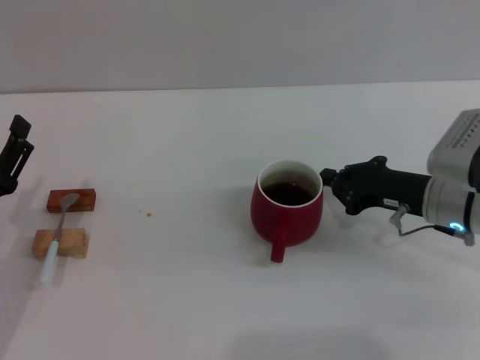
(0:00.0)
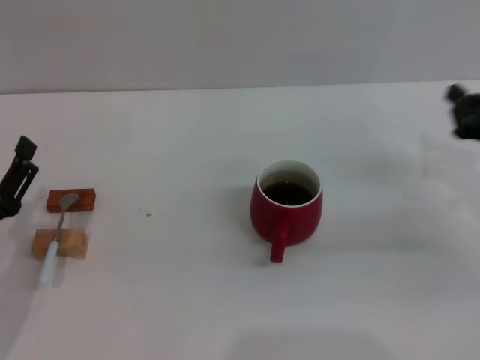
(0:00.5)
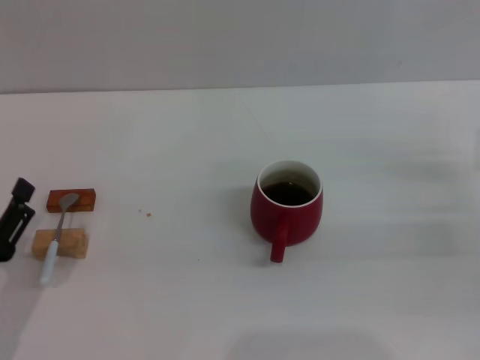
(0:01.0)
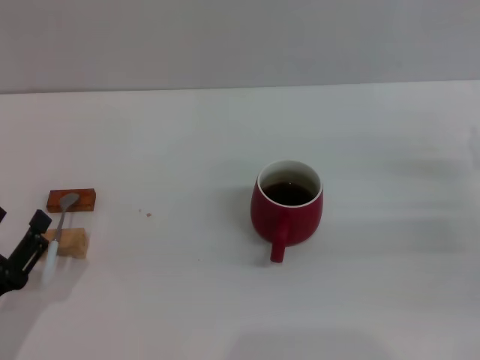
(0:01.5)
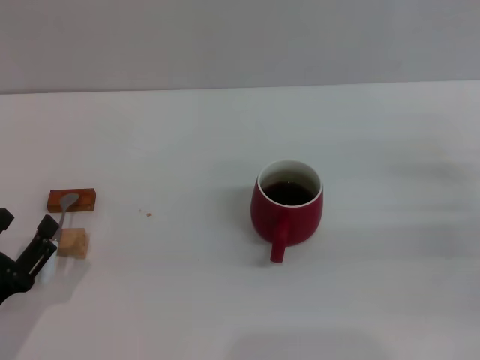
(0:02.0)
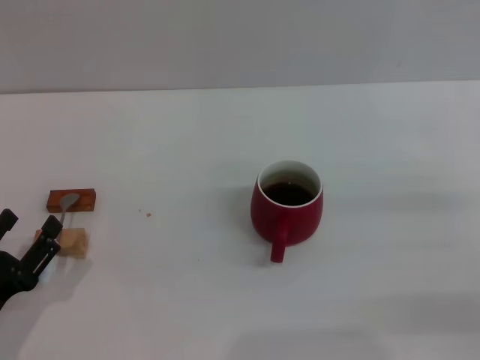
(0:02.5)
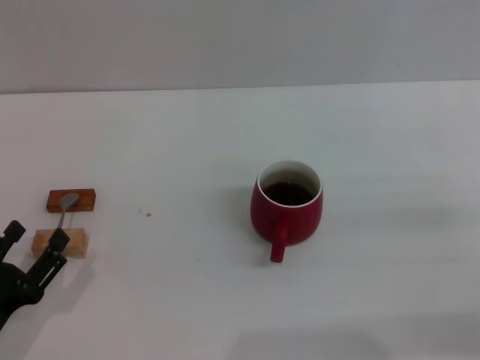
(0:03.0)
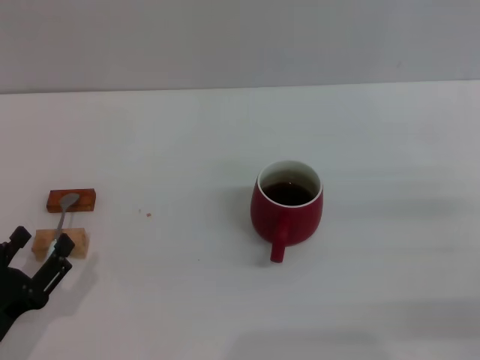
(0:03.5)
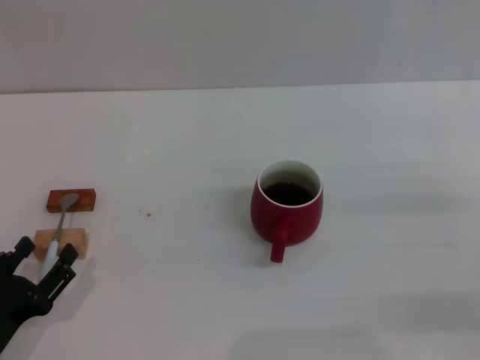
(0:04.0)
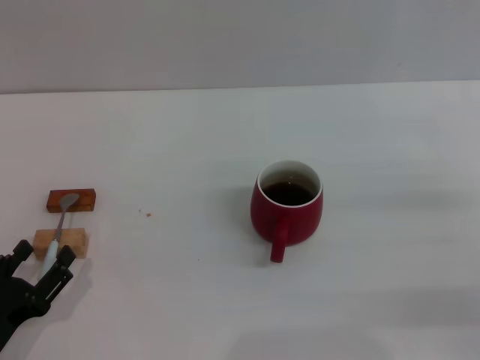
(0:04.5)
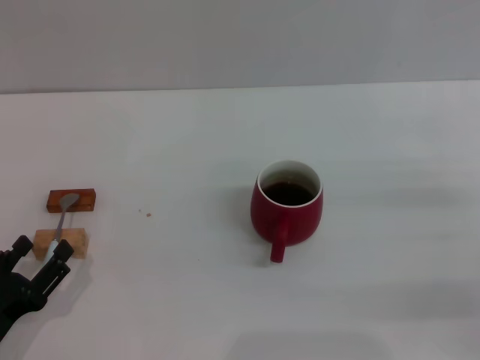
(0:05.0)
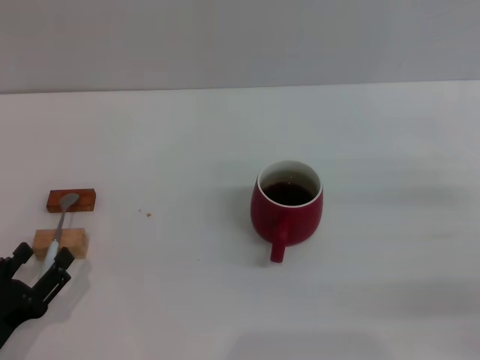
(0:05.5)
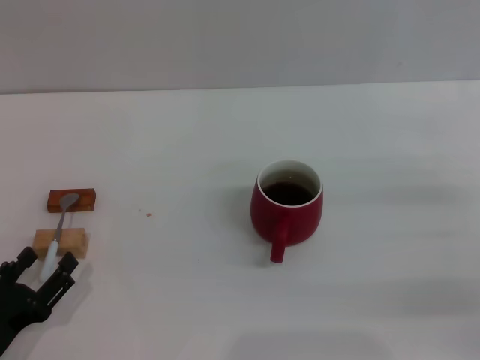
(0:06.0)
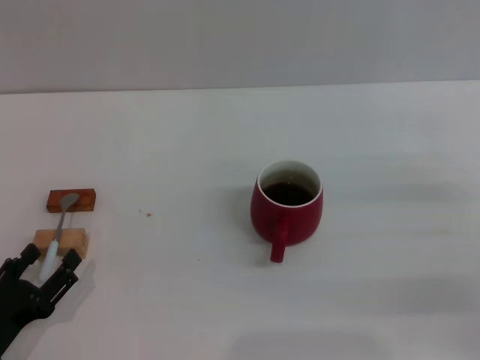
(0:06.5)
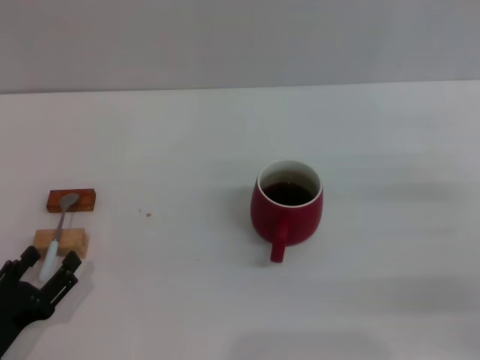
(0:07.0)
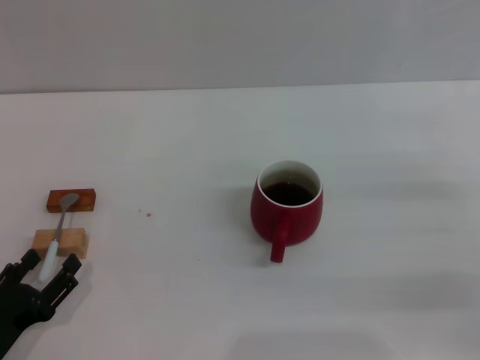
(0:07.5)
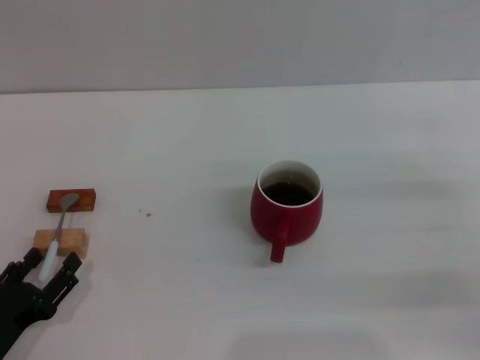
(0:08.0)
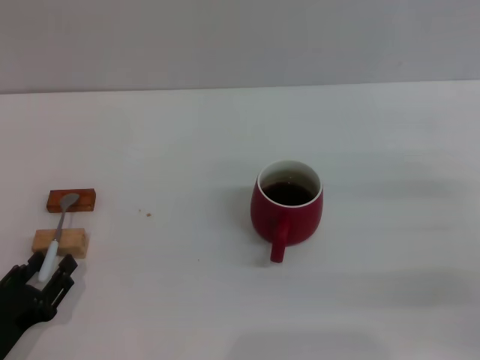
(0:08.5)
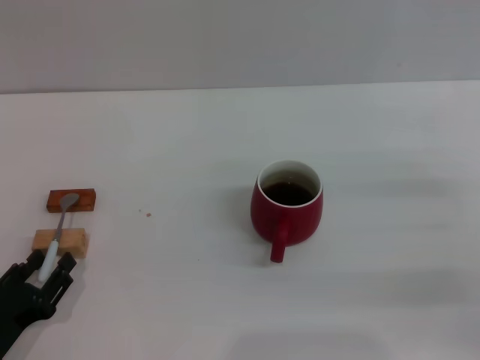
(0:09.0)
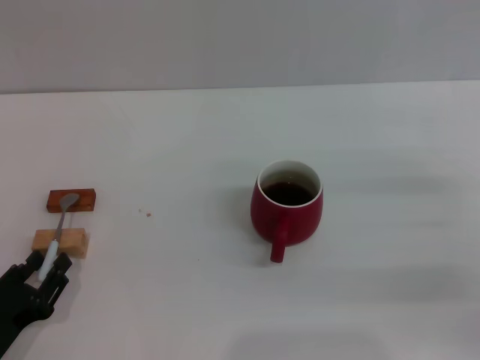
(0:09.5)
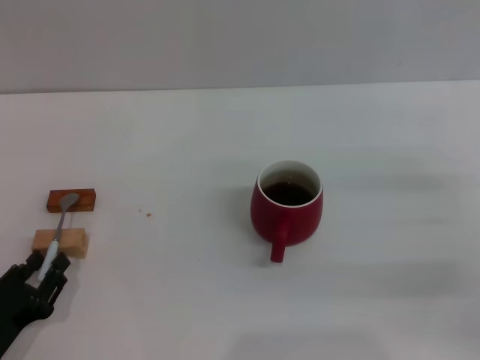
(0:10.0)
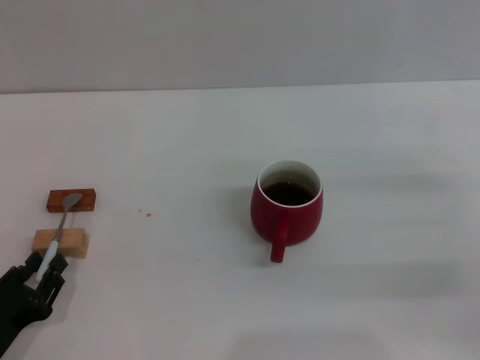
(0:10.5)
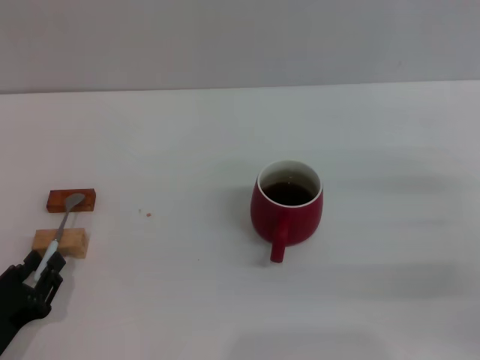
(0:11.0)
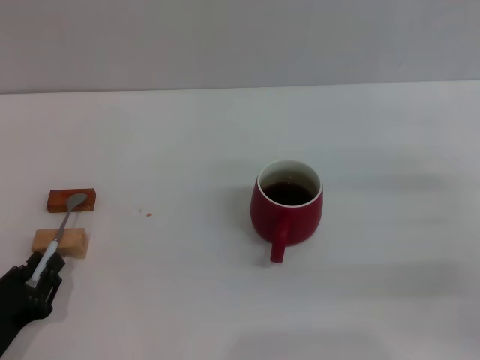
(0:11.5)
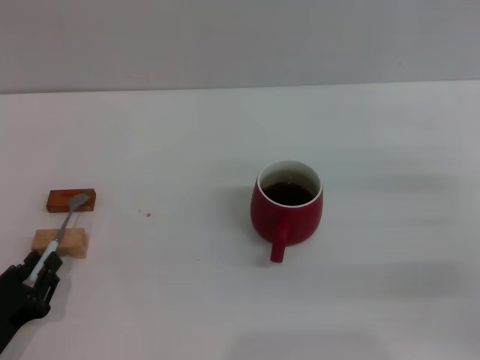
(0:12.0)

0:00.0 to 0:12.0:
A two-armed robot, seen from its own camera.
Task of the whole recording: Move the red cup to the center, lift the blue spoon, stir it three times in the cup, and put the spoon into the cup.
0:00.0 to 0:02.0: The right gripper moves to the right, roughly 10 cm, and opens. The left gripper goes about 5 cm backward.
0:04.0 to 0:06.0: Both grippers stay put.
0:06.0 to 0:08.0: Both grippers stay put.
0:08.0 to 0:10.0: The left gripper closes its fingers.
0:10.0 to 0:12.0: Both grippers stay put.

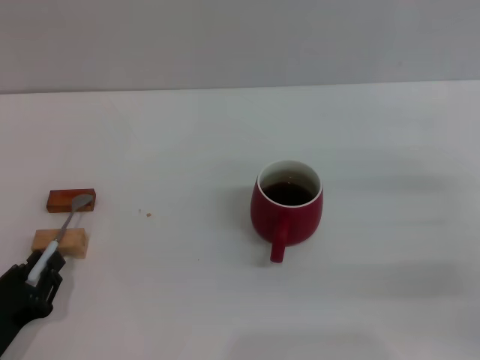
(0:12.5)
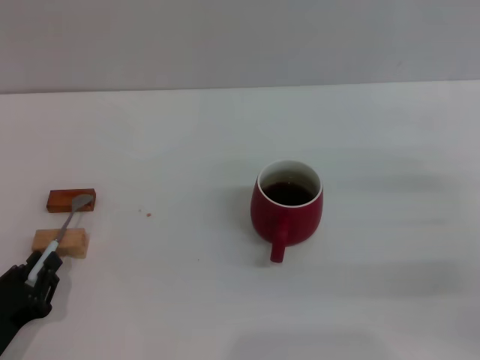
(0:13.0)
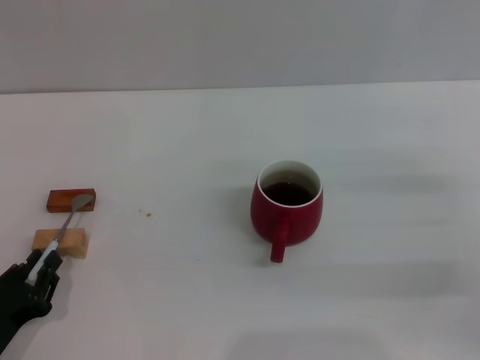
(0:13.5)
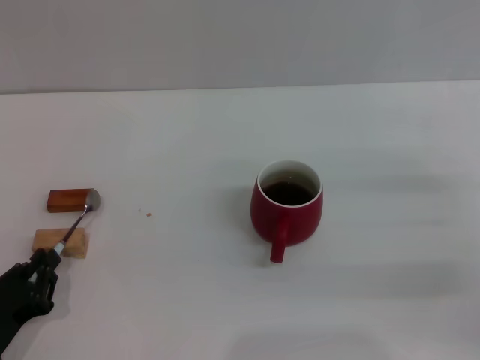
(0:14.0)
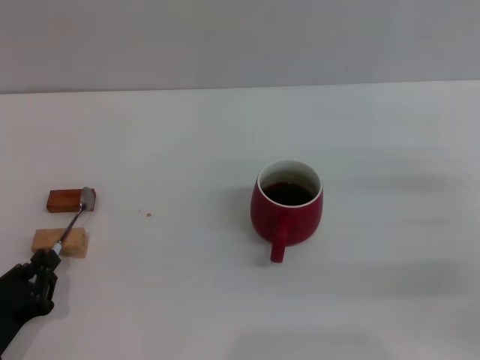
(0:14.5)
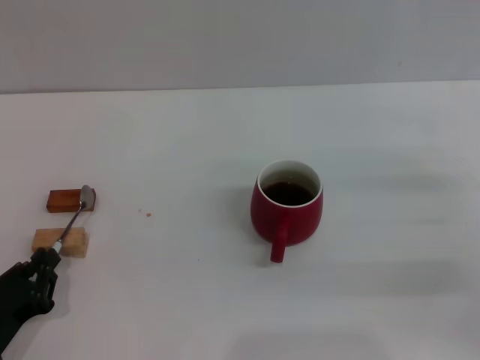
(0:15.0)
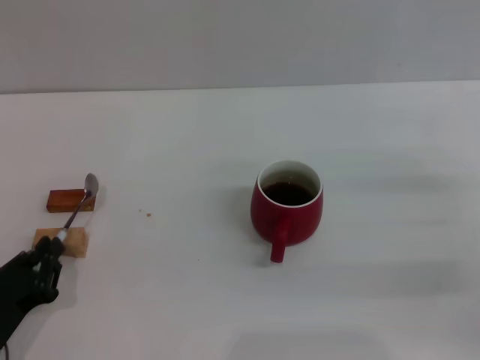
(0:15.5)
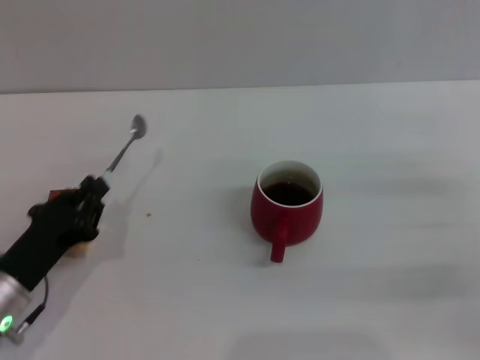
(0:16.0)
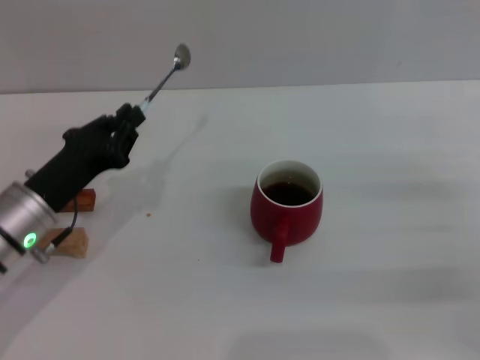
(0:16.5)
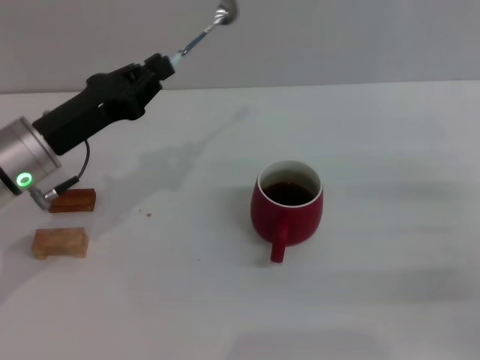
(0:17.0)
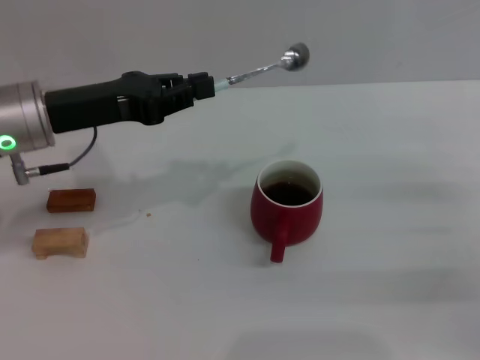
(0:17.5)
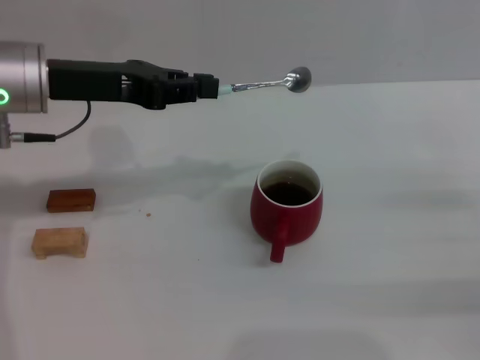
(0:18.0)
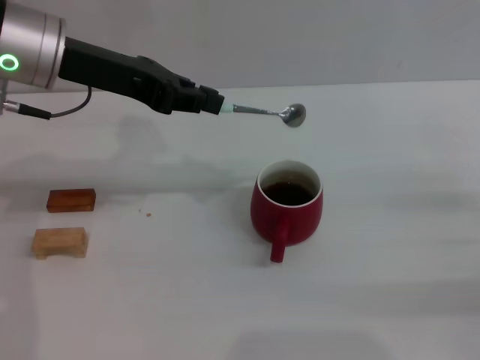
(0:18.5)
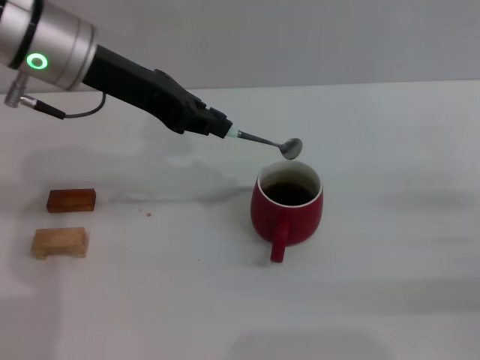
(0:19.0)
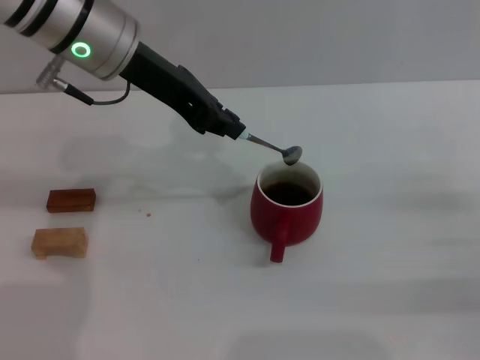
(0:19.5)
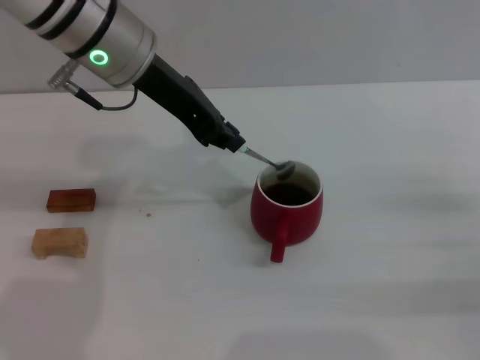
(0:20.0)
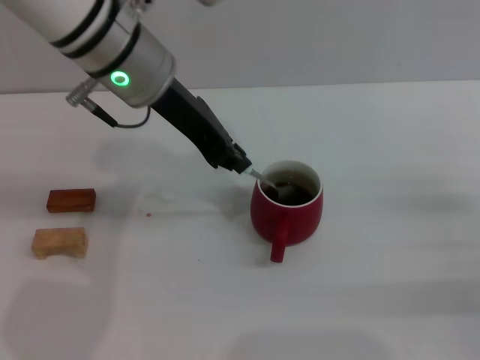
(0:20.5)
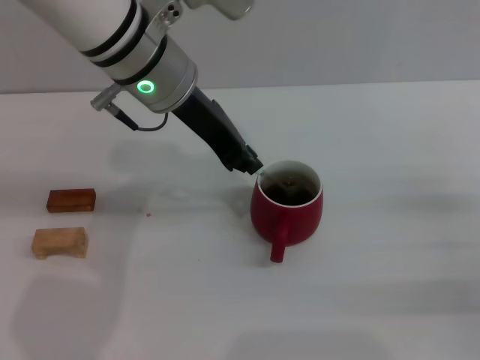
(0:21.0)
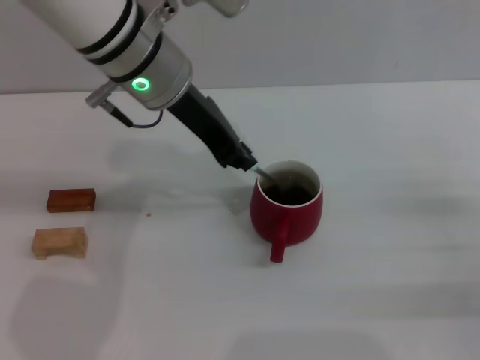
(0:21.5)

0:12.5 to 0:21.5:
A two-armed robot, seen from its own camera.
Task of the whole recording: Move the red cup to the center, lift the blue spoon, stir it three times in the cup, and put the spoon into the cup.
Step, 0:12.5 to 0:15.5: Pick up the spoon with the left gripper.
0:12.5 to 0:14.5: Both grippers stay put.
0:14.5 to 0:17.0: The left gripper moves forward and upward, approximately 20 cm.
0:17.0 to 0:19.5: The left gripper goes some 20 cm upward, to the right and forward.
0:19.5 to 0:21.5: The left gripper changes place by roughly 5 cm.

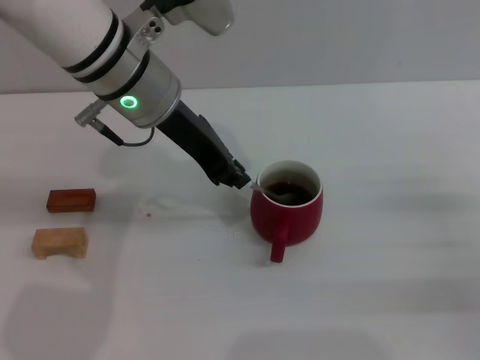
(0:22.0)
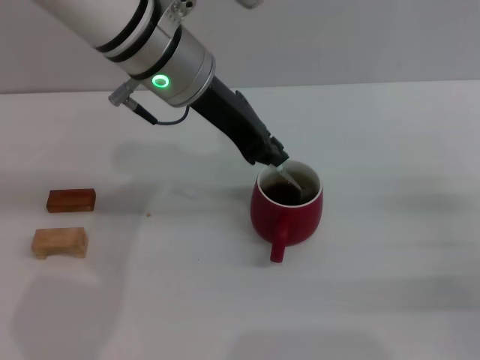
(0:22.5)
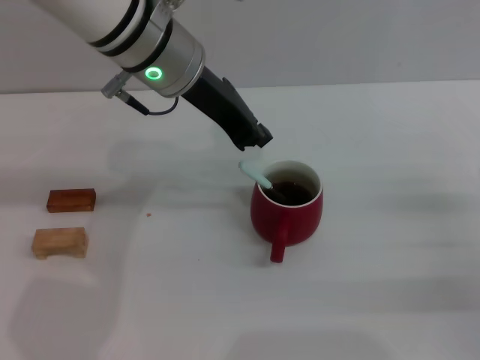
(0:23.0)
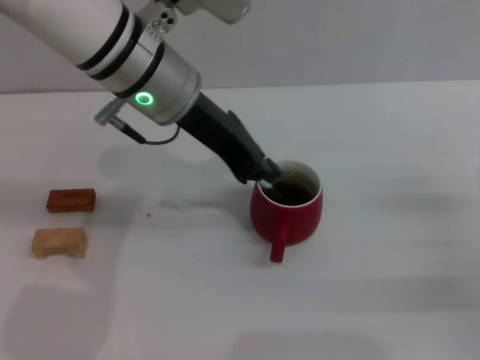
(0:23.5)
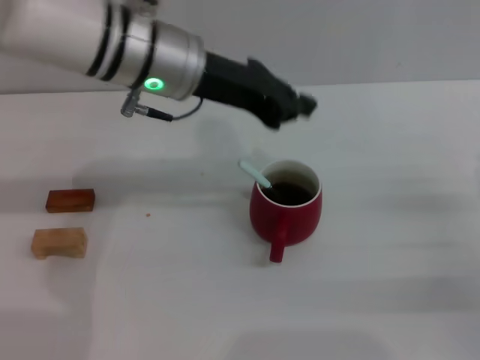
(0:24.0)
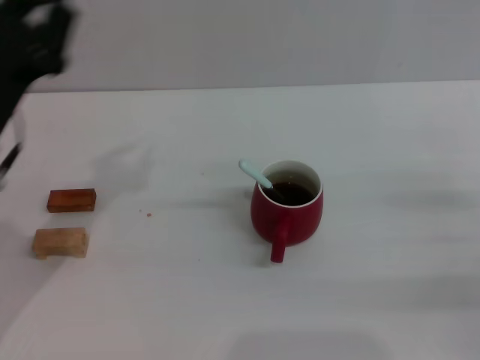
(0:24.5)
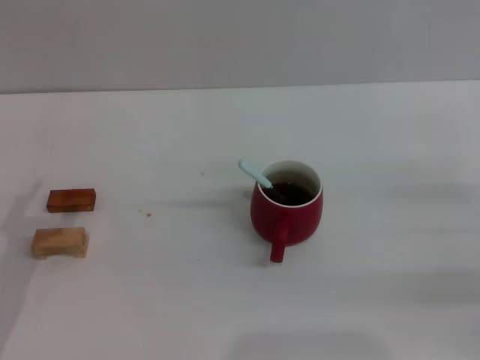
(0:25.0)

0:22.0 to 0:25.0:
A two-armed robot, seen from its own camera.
Task of the whole recording: Move the red cup to the center, lift the blue spoon, stir it three times in the cup, and put the spoon into the cup.
0:22.0 to 0:23.5: The grippers move only a little.
0:23.5 to 0:25.0: The left gripper moves to the left, backward and downward, roughly 30 cm, and opens up.
